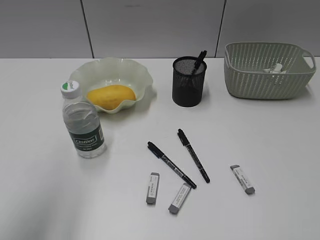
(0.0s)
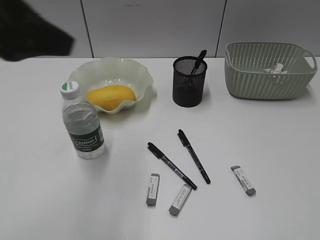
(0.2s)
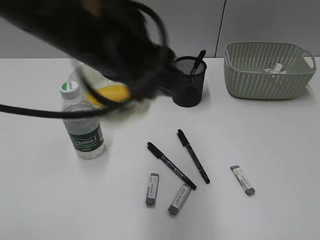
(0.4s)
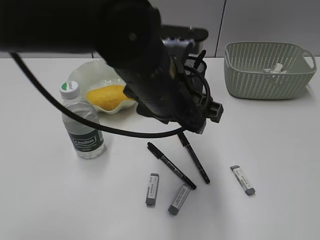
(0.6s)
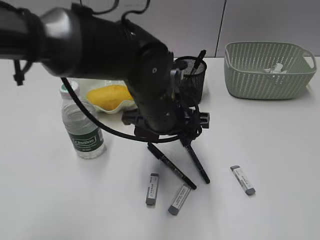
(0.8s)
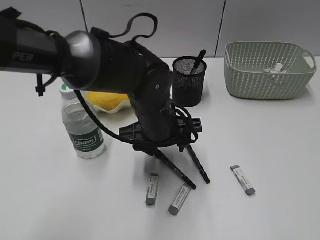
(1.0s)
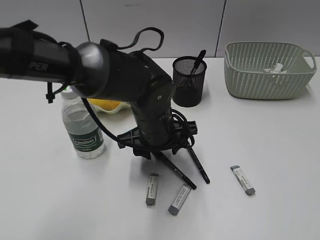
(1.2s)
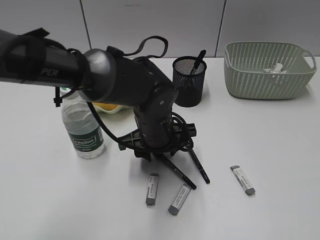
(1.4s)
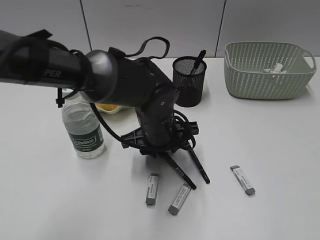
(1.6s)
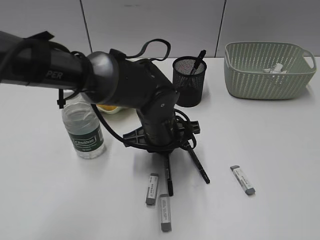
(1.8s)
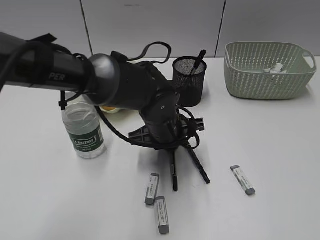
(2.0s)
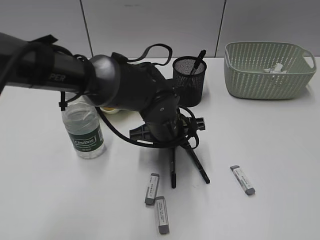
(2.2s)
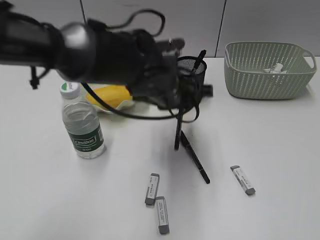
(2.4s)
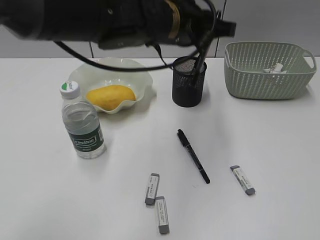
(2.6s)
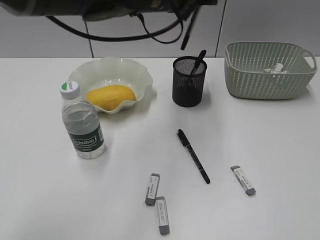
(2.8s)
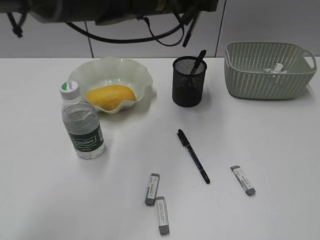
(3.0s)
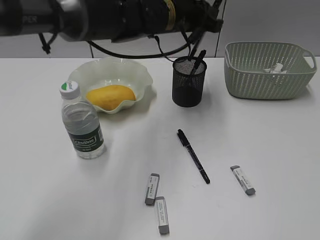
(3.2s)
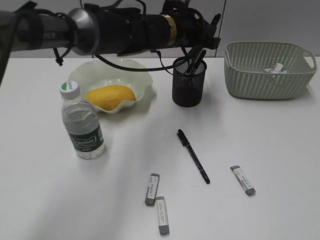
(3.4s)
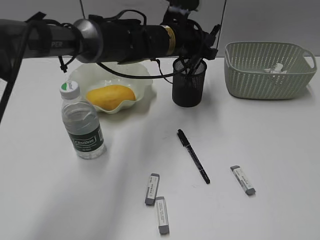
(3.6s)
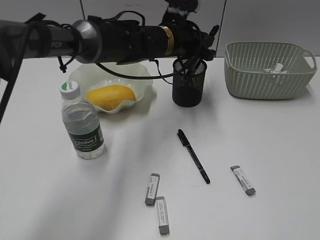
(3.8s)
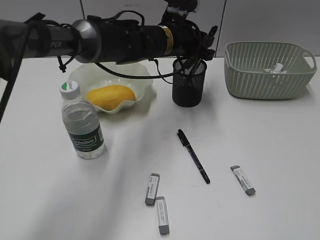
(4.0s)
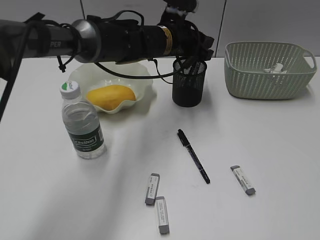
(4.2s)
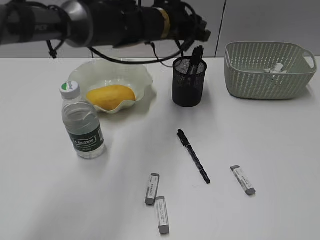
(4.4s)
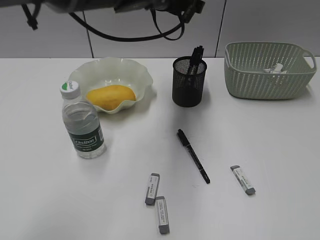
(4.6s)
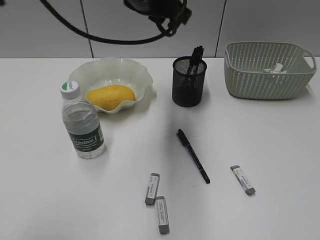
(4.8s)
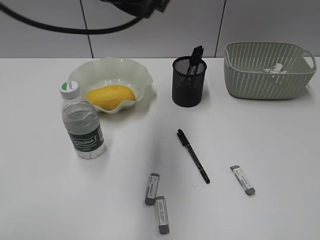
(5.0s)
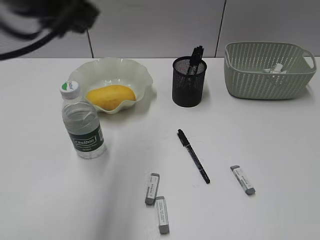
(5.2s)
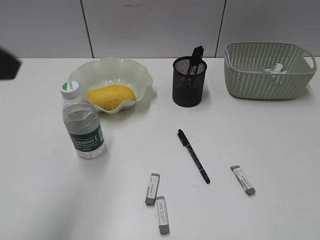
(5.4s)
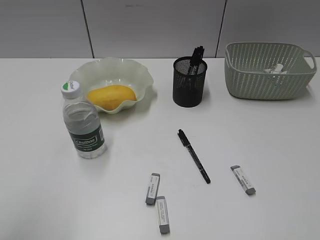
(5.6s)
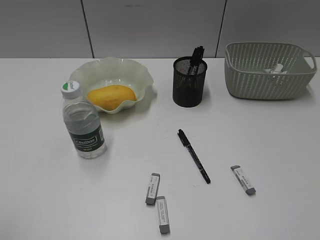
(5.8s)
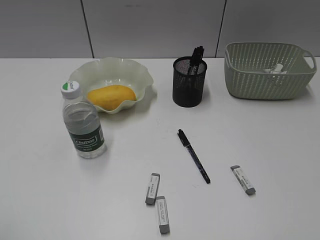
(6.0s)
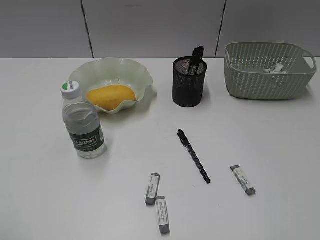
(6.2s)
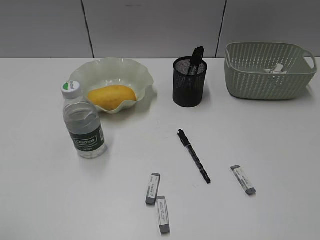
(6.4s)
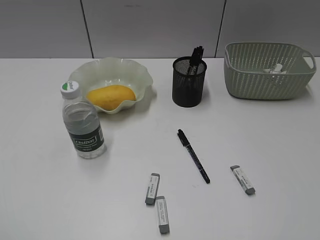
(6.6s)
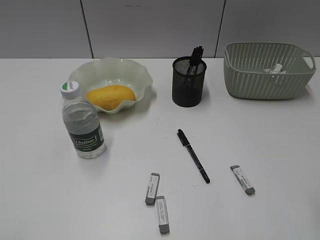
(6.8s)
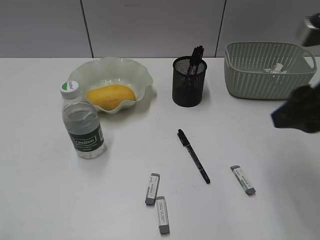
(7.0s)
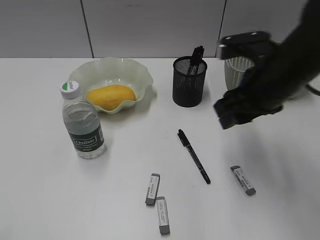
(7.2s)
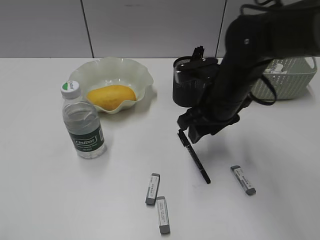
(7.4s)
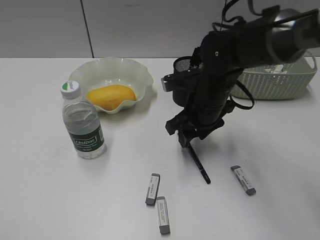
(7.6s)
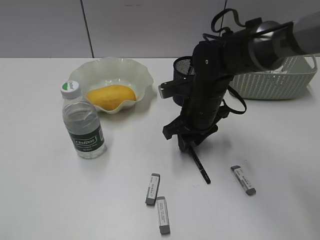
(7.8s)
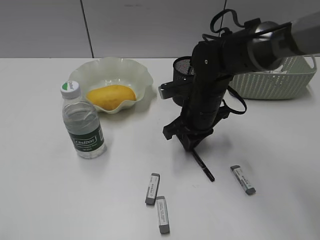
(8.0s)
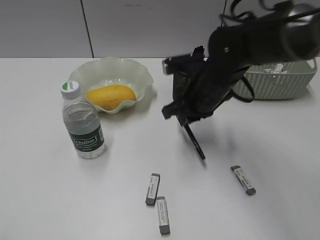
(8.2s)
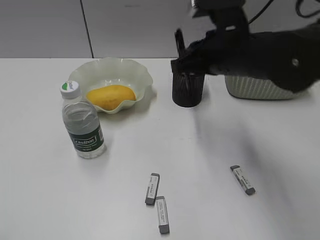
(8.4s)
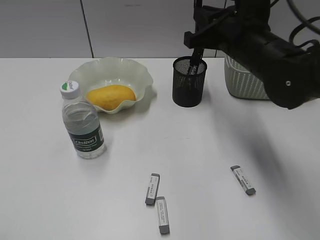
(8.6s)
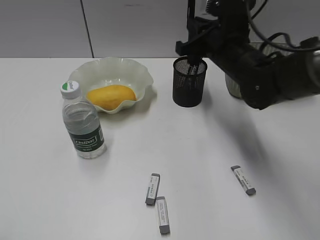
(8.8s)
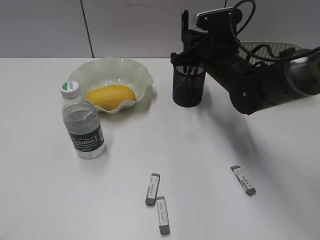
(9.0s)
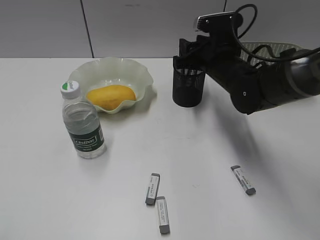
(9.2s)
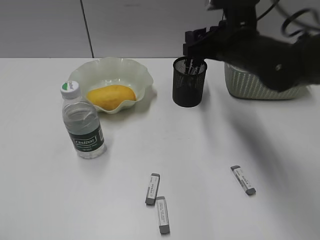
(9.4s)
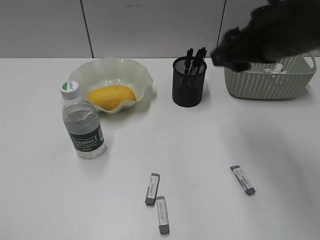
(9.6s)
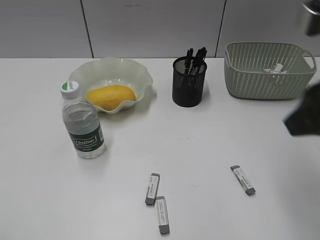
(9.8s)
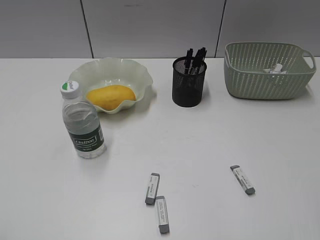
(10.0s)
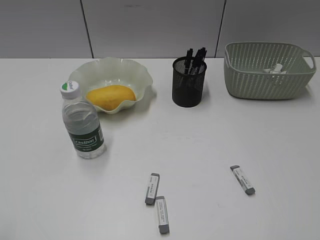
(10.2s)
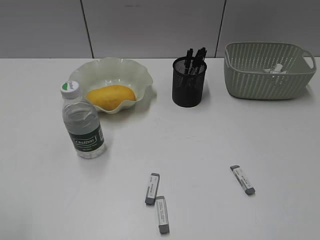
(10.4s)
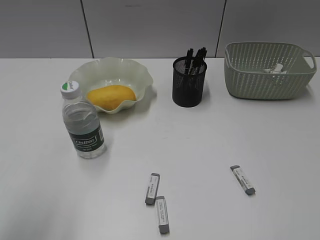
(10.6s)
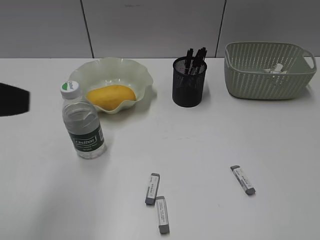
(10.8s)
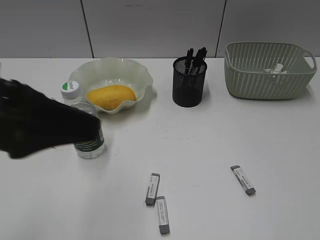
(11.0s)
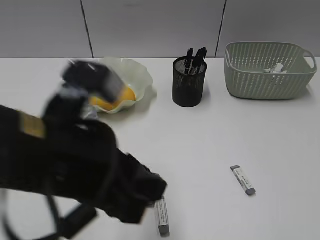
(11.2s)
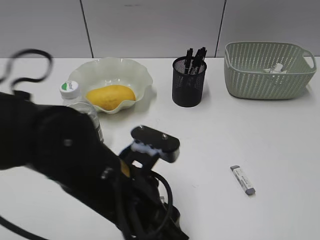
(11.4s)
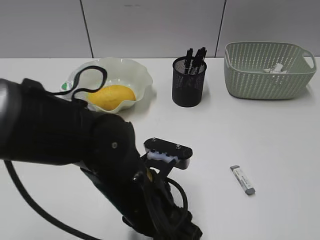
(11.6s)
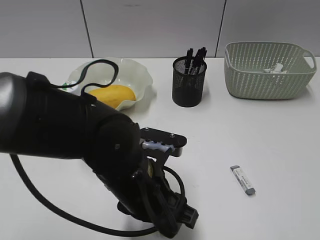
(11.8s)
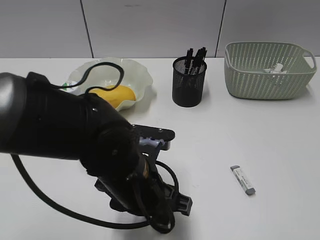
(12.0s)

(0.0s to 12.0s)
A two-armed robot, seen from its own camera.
Step, 0.0s - 1.8s: Grasp the black pen with left gripper.
Step, 2.0s - 4.2s: Place the black pen in pen holder with left gripper.
Step, 4.4s - 8.0s: Grasp the black pen with right gripper.
Step, 8.2s - 9.4s: Place the black pen in pen holder with right gripper.
0.0s - 1.6s: The left gripper travels to the right, downward and forward by approximately 40 cm.
1.6s - 3.0s: The left gripper moves upward and forward, roughly 20 cm, and closes its fingers.
3.0s - 4.4s: The left gripper travels downward by approximately 5 cm, and opens up.
4.4s - 6.0s: The left gripper heads backward and to the left, covering approximately 50 cm, and opens up.
6.0s - 7.6s: The right gripper travels forward, to the left and downward by about 40 cm.
7.6s - 9.0s: The right gripper shifts approximately 5 cm forward, goes upward and returns, roughly 10 cm each way, and closes its fingers.
9.0s - 10.4s: The right gripper is displaced backward and to the right by about 40 cm, and opens.
10.4s - 12.0s: The left gripper is displaced to the right, downward and forward by some 35 cm.

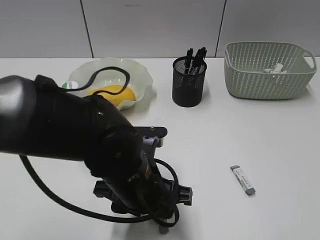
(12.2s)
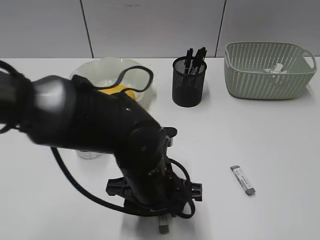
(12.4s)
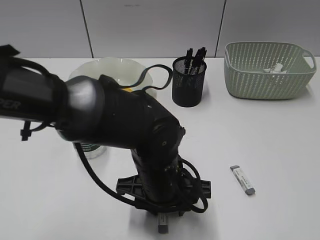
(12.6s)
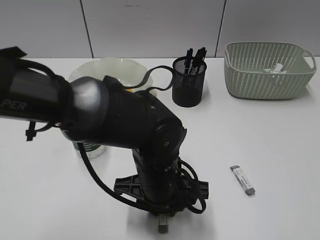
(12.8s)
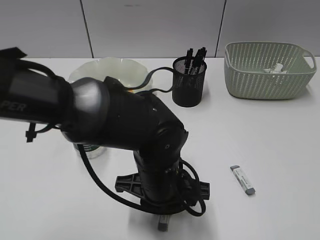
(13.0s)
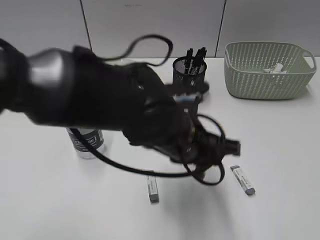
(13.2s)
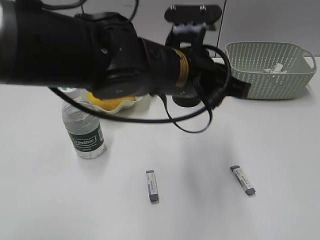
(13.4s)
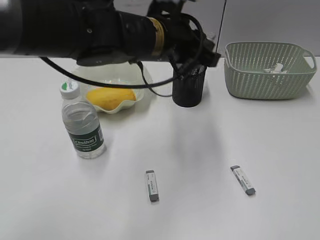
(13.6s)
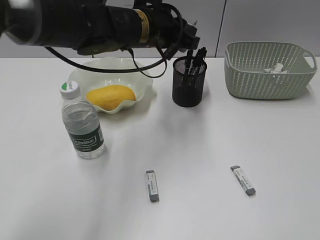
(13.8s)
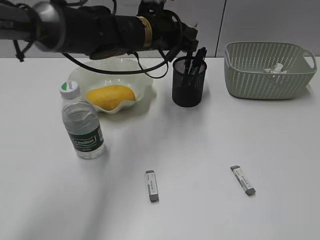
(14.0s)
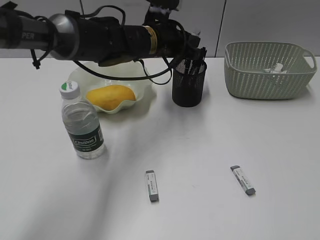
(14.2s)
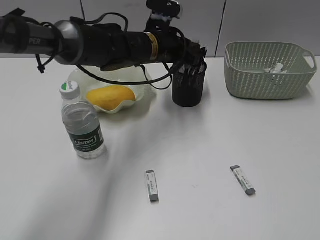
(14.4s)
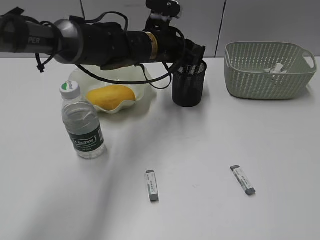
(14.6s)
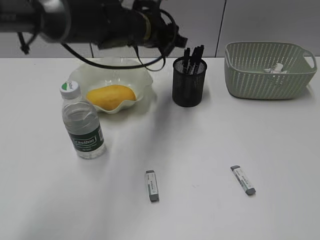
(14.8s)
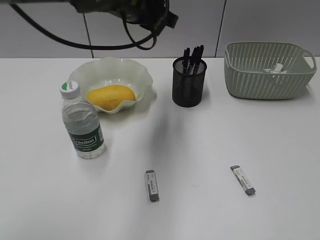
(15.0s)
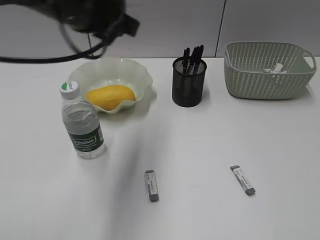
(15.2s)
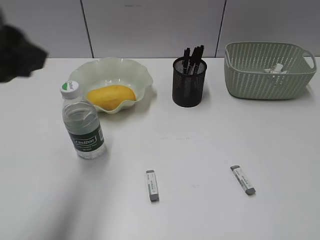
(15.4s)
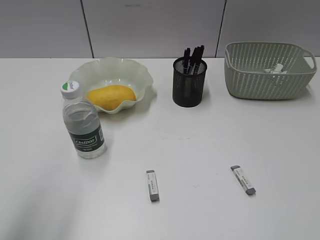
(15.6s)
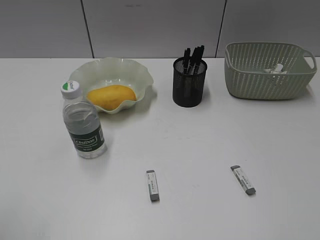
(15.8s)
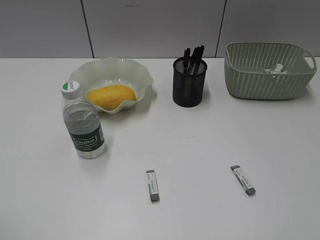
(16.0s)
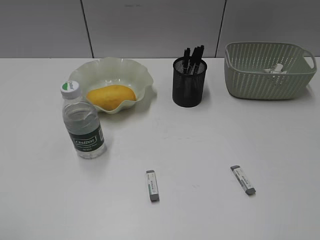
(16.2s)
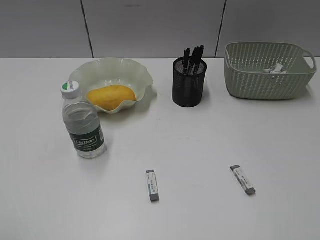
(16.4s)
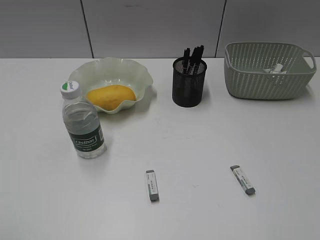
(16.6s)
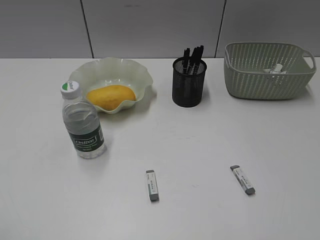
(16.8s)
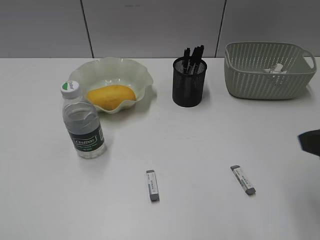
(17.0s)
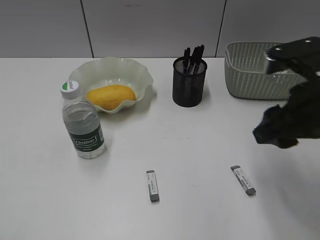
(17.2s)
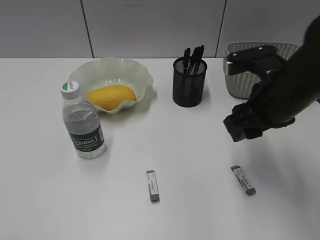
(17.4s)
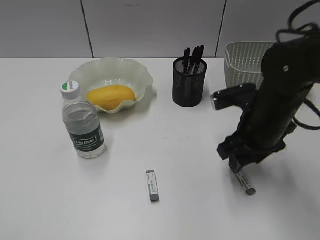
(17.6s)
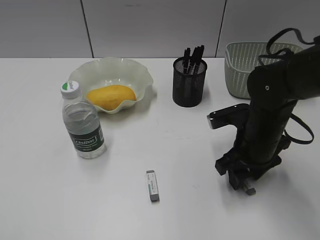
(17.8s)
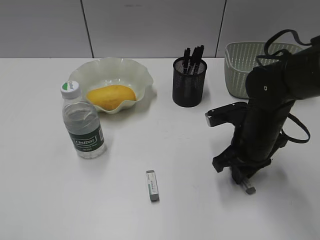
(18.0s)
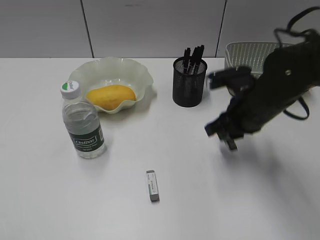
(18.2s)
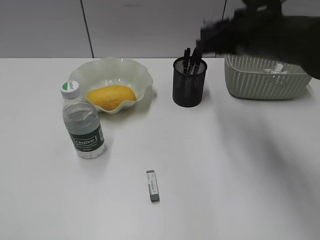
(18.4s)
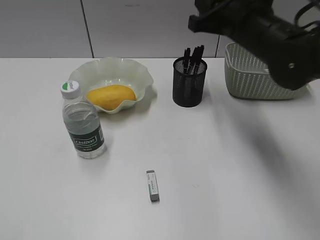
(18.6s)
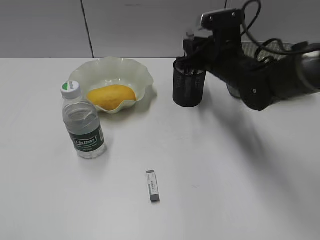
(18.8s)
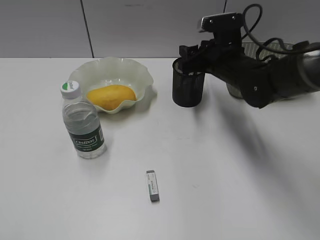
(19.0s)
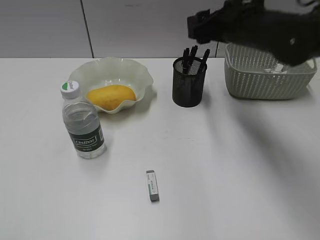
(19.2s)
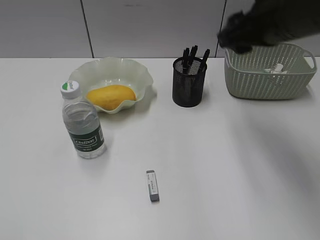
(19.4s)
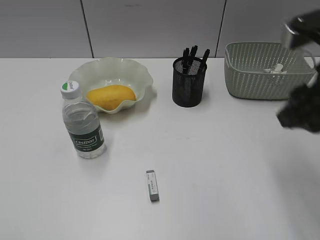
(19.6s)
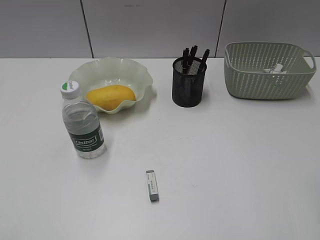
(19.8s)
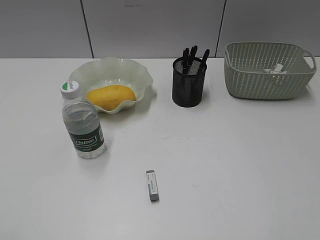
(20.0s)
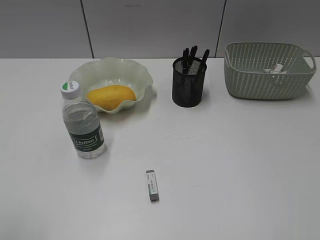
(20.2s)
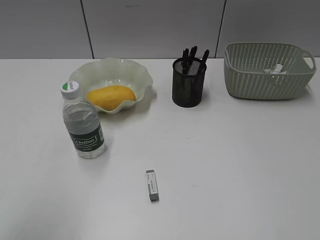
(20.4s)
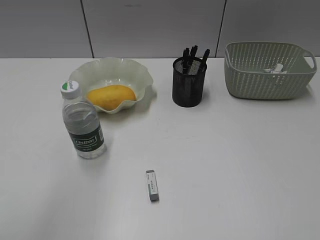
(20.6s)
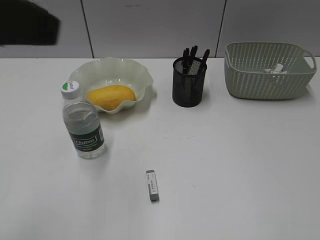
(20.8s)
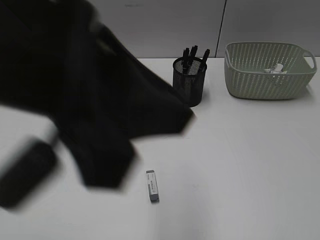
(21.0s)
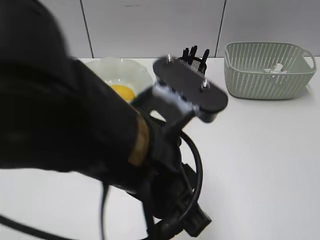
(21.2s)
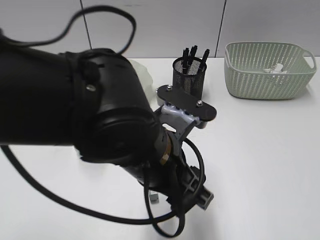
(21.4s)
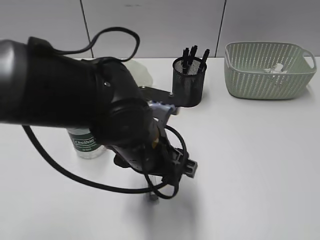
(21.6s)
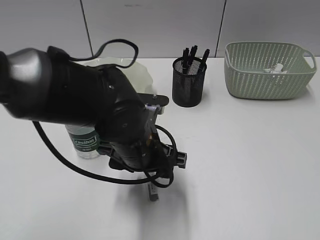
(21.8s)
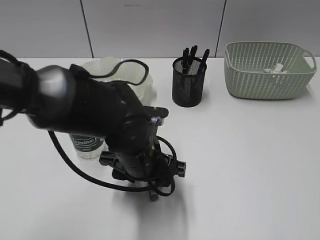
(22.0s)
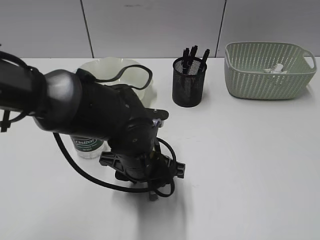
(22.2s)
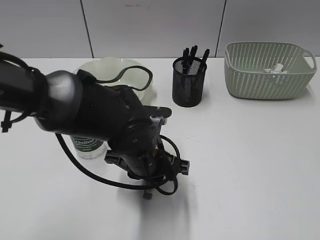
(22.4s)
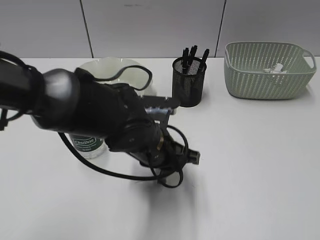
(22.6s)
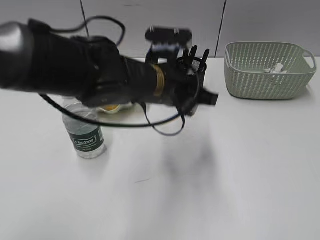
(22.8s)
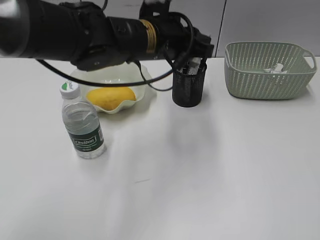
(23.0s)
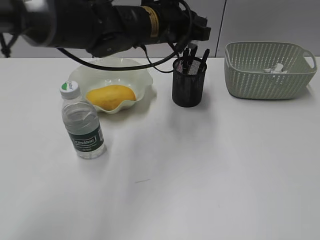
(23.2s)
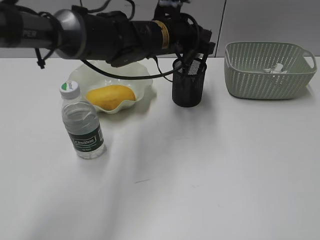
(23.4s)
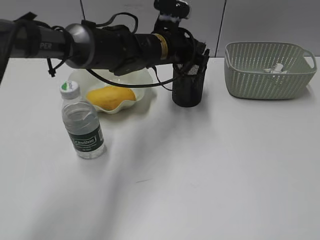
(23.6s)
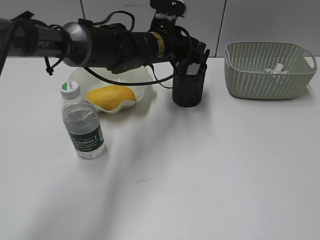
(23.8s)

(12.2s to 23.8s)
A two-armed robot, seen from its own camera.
Step, 13.2s - 14.6s: Place the eraser in pen holder with left gripper.
Step, 14.8s - 18.0s: Grasp the eraser with right gripper.
Step, 18.2s - 19.0s: Place the eraser in pen holder with right gripper.
Step, 19.2s - 22.4s: Grasp the eraser with left gripper.
12.2s - 13.6s: The left gripper shifts some 15 cm forward and upward, and closes.
13.6s - 15.0s: The left gripper travels forward by approximately 5 cm.
15.0s - 16.6s: The left gripper goes approximately 50 cm backward and to the left.
16.6s - 18.0s: The right gripper travels forward, downward and to the left by roughly 35 cm, and closes up.
18.0s - 19.4s: The right gripper moves up and down over about 20 cm, changing direction 2 times, and opens its fingers.
19.4s - 21.0s: The right gripper is displaced backward and to the right by some 35 cm, while the left gripper moves to the right and forward, some 25 cm, and closes its fingers.
21.0s - 22.4s: The left gripper heads downward and forward, covering about 25 cm, and opens, then closes again.
22.4s - 23.8s: The left gripper moves forward, about 20 cm, and opens.
